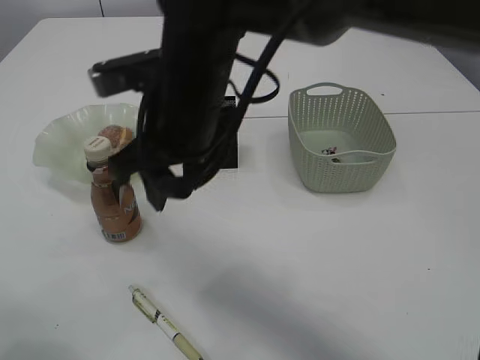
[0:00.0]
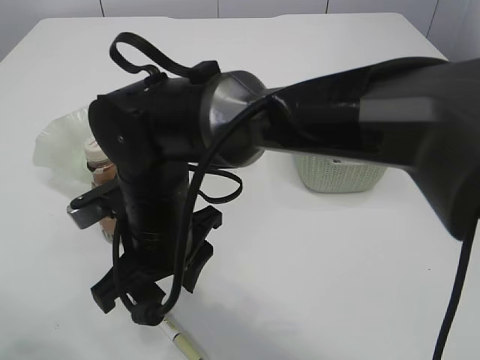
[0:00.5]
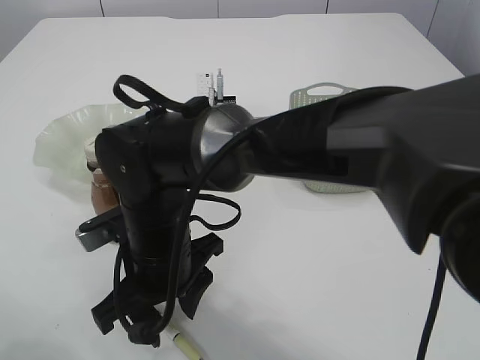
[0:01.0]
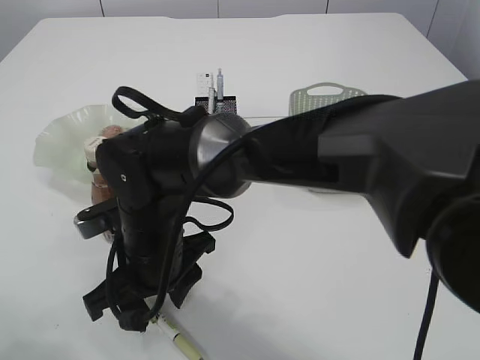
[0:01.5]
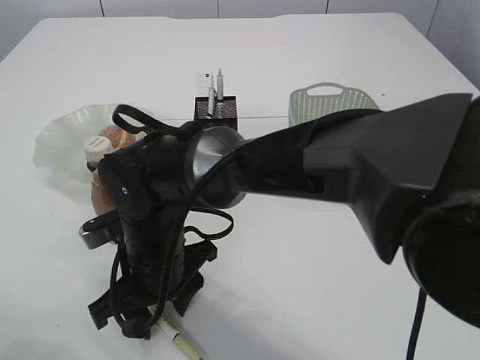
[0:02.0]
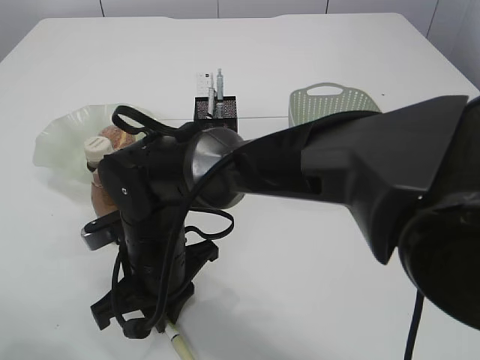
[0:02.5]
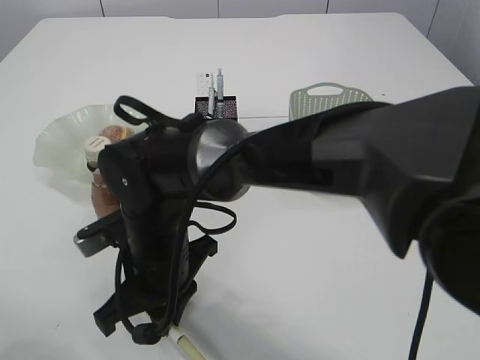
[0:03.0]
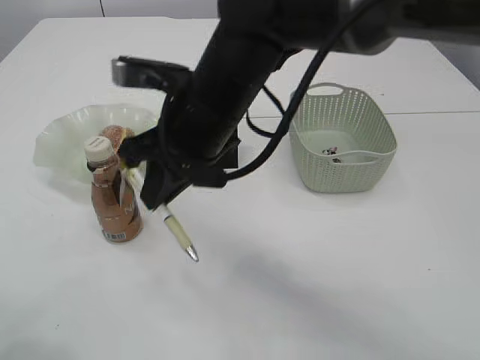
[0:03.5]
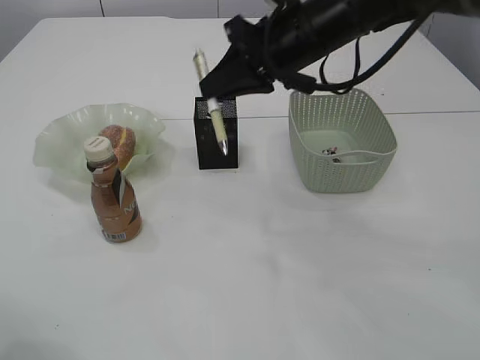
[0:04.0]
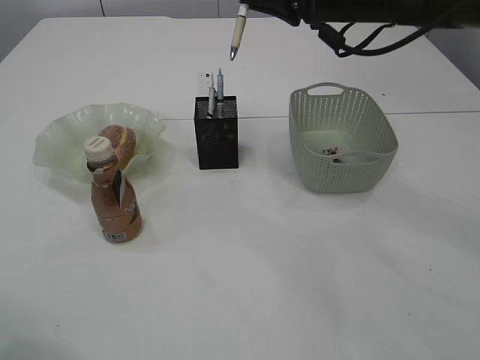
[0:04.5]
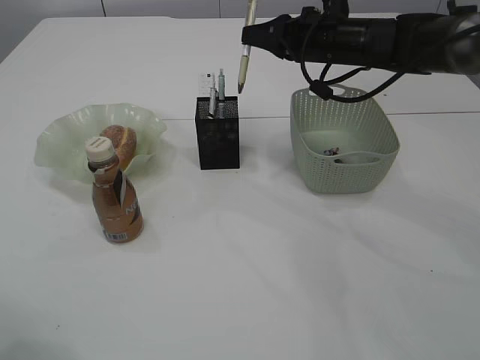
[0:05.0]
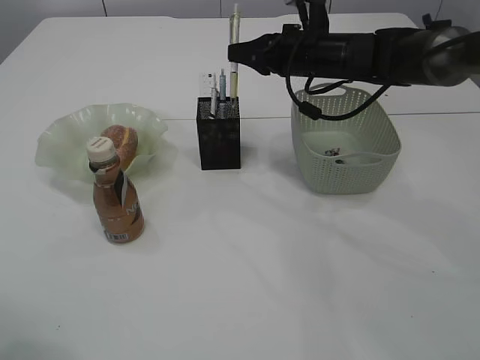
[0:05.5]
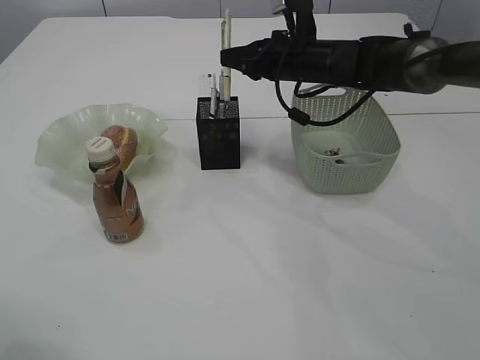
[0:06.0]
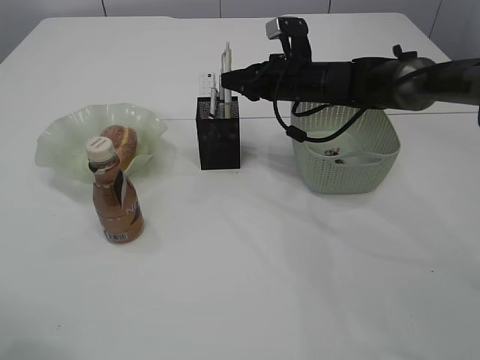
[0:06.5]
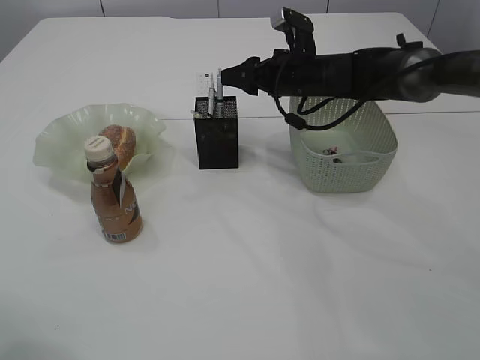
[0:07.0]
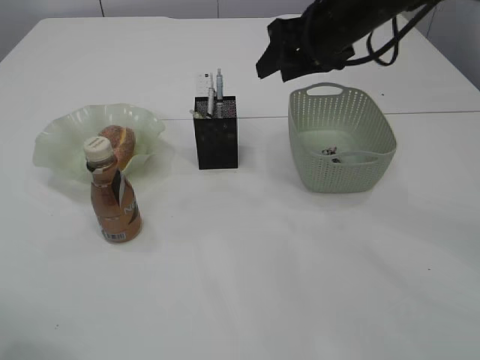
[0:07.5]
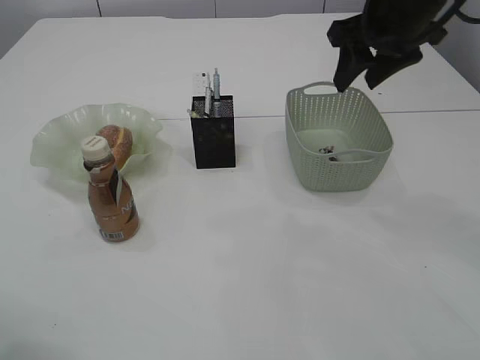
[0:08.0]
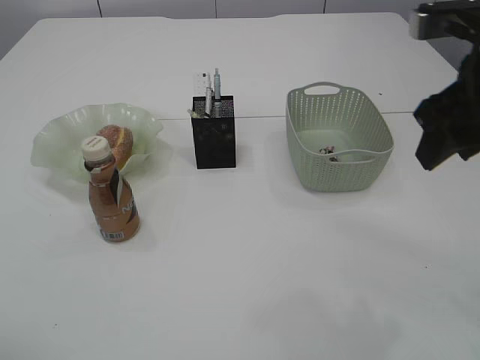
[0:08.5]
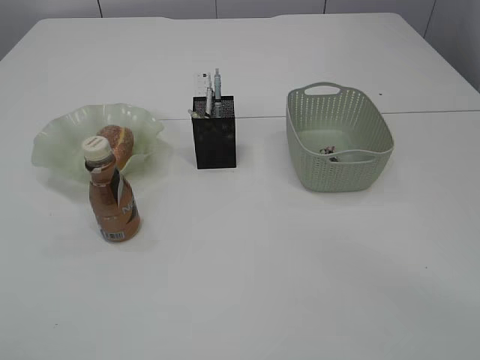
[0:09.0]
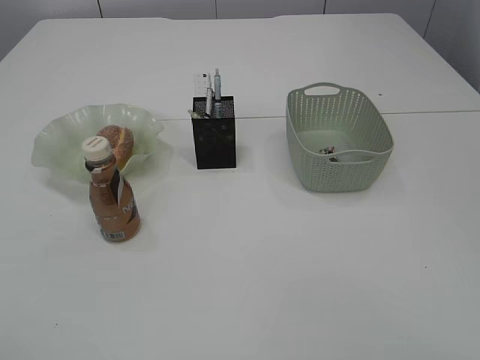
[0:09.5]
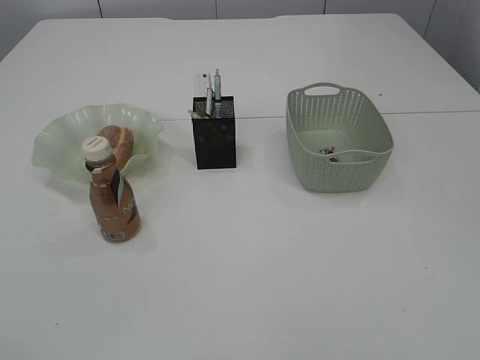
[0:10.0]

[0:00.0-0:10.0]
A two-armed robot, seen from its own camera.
Step, 0:00.0 to 0:03.0: Pick up the pen with right arm.
Step, 0:03.5 to 0:07.0: Place the pen into the pen holder.
0:00.0 to 0:02.0: The right gripper is displaced downward by approximately 15 cm.
0:02.0 to 0:04.0: The right gripper travels to the right, upward and forward by roughly 25 cm, and closes up.
0:04.0 to 0:06.0: The right gripper shifts approximately 15 cm forward and downward.
0:06.0 to 0:08.0: The right gripper heads upward, backward and to the right, covering roughly 15 cm, and opens up.
0:08.0 to 0:10.0: The left gripper goes approximately 20 cm backward, while the right gripper is displaced backward by approximately 40 cm.

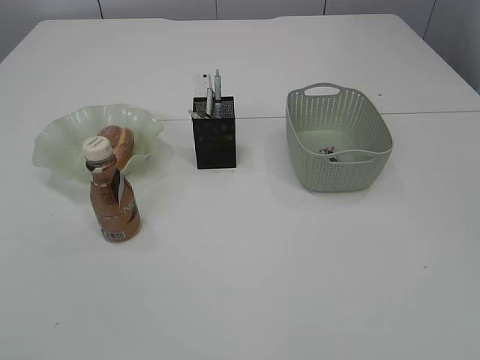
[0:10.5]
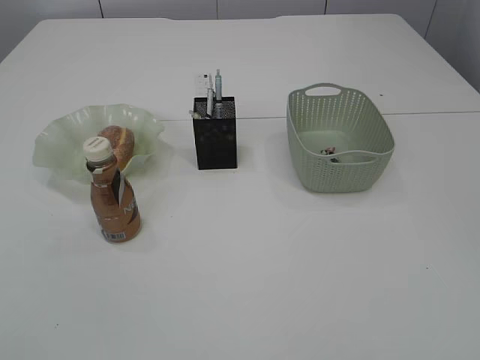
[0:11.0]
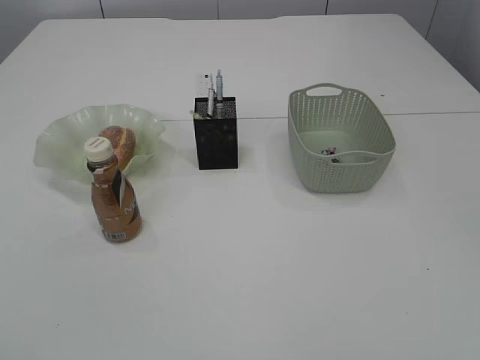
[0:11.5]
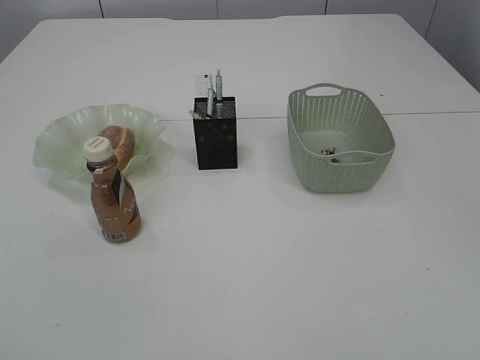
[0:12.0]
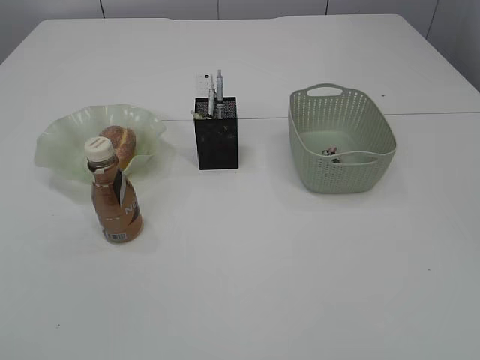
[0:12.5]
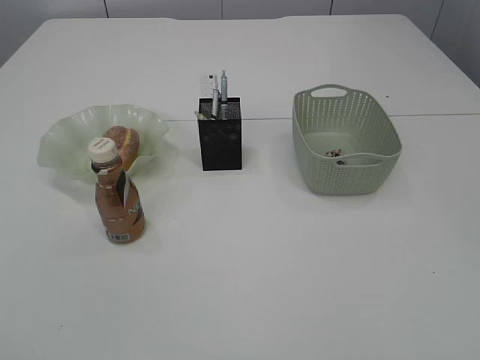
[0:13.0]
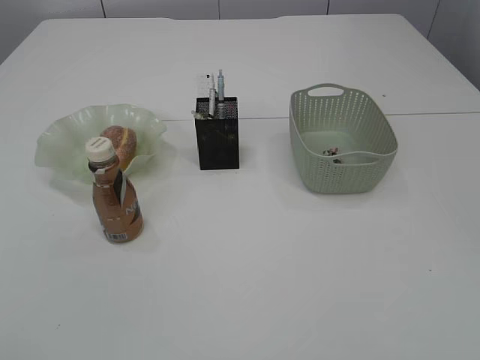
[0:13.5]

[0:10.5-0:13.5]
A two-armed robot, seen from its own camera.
0:10.5 to 0:12.0: The right gripper shifts by approximately 5 cm.
0:12.0 to 0:13.5: The grippers move only a little.
